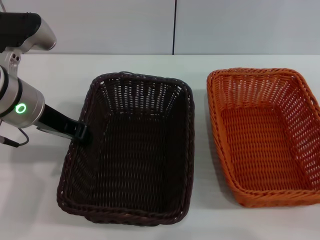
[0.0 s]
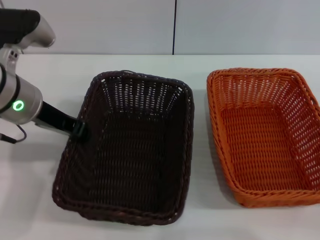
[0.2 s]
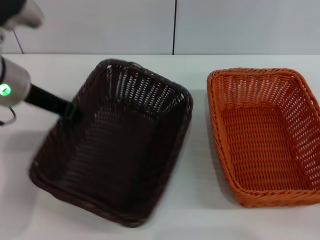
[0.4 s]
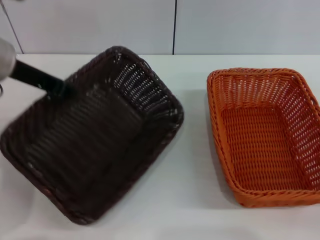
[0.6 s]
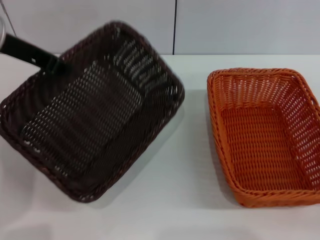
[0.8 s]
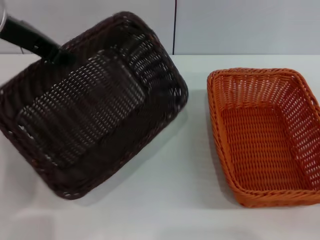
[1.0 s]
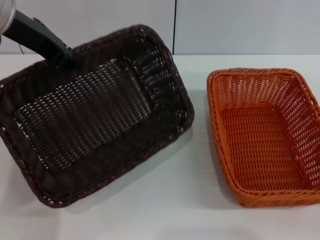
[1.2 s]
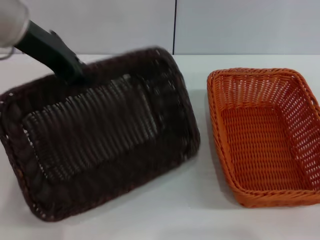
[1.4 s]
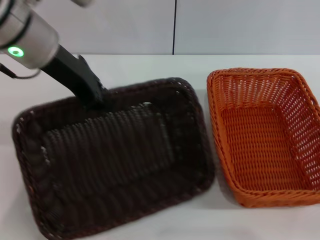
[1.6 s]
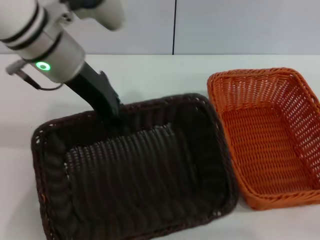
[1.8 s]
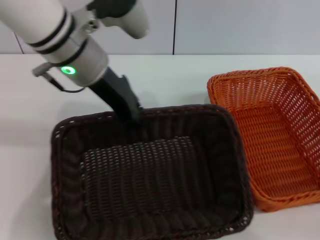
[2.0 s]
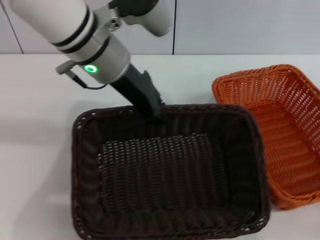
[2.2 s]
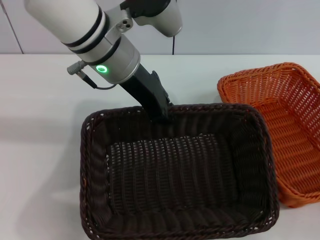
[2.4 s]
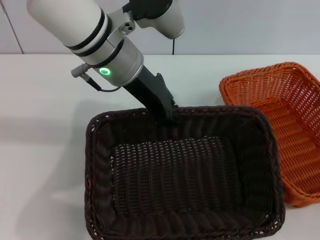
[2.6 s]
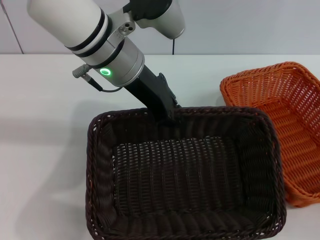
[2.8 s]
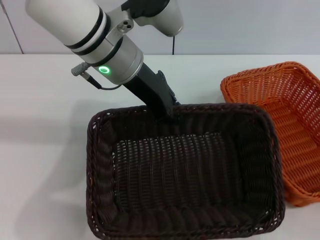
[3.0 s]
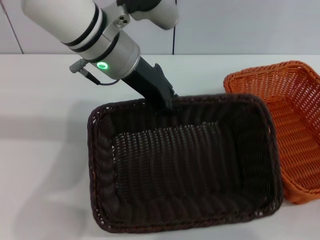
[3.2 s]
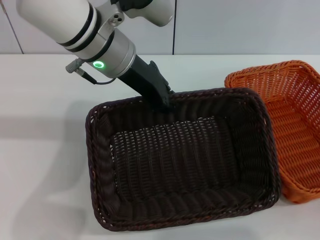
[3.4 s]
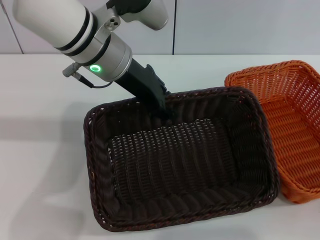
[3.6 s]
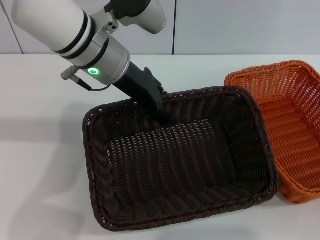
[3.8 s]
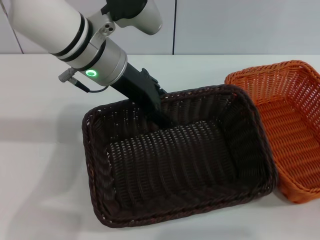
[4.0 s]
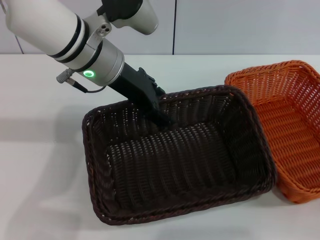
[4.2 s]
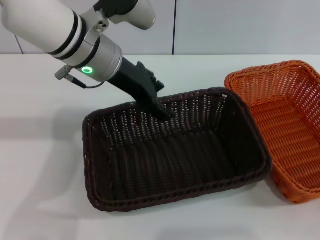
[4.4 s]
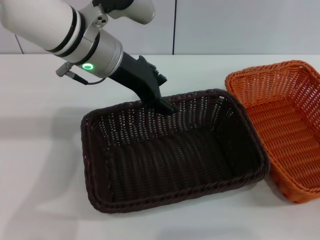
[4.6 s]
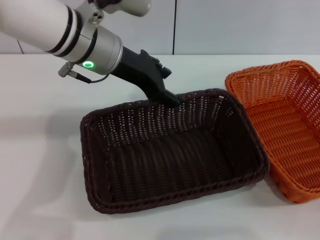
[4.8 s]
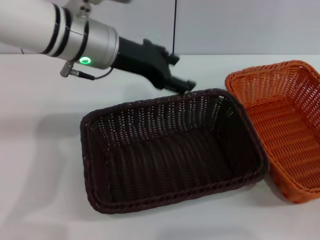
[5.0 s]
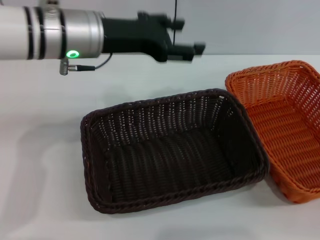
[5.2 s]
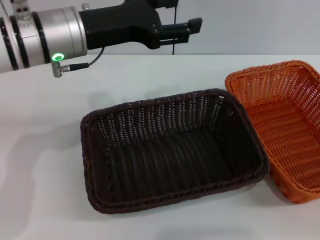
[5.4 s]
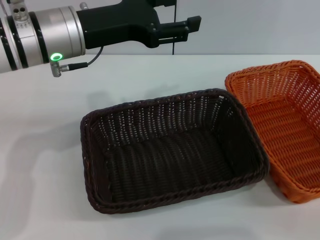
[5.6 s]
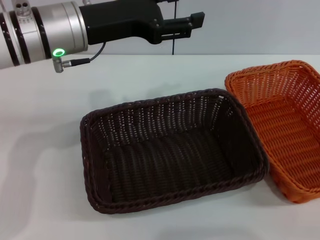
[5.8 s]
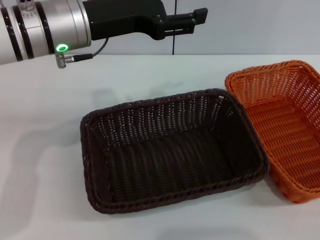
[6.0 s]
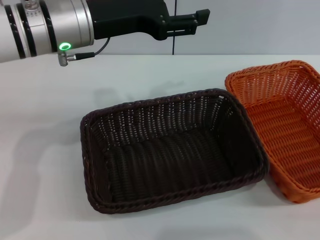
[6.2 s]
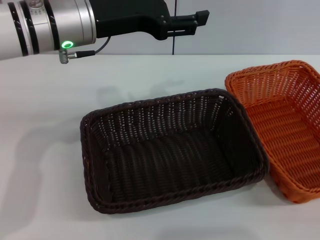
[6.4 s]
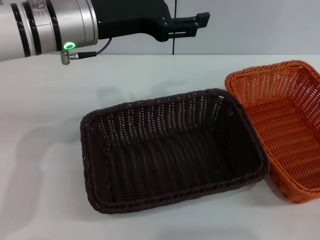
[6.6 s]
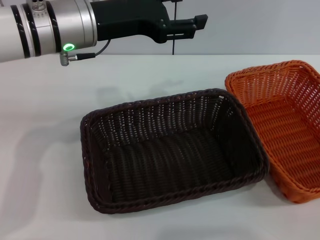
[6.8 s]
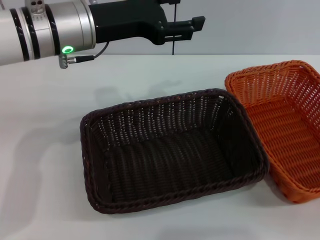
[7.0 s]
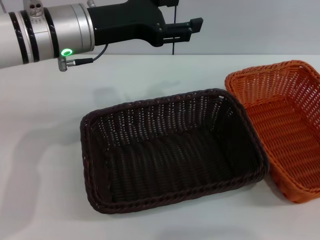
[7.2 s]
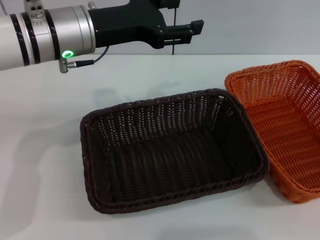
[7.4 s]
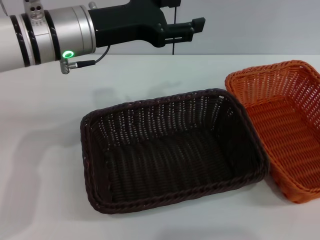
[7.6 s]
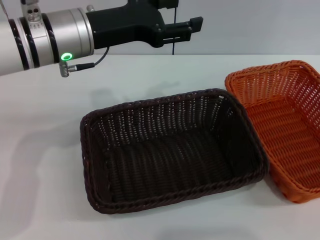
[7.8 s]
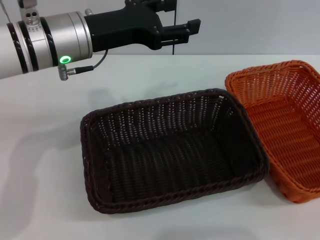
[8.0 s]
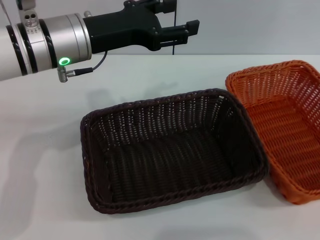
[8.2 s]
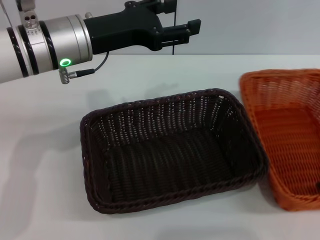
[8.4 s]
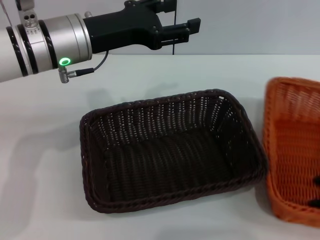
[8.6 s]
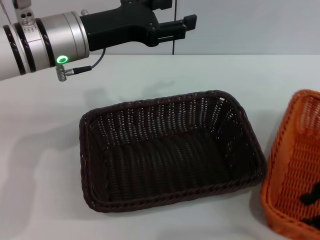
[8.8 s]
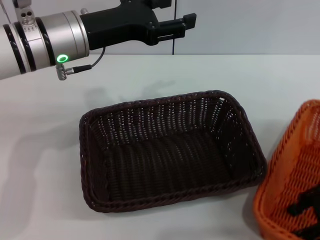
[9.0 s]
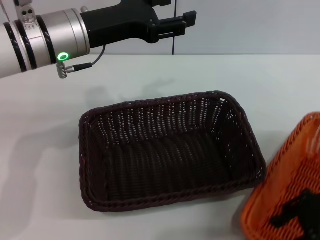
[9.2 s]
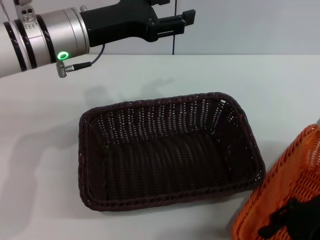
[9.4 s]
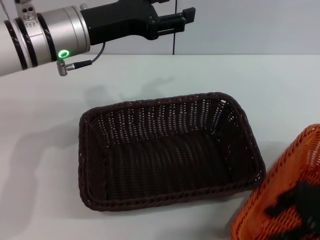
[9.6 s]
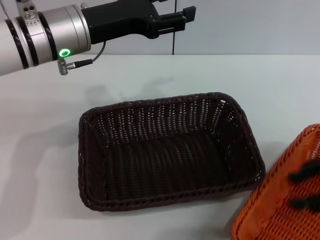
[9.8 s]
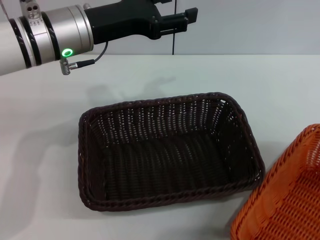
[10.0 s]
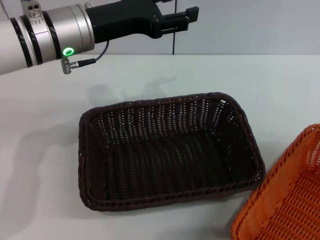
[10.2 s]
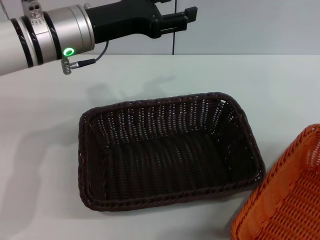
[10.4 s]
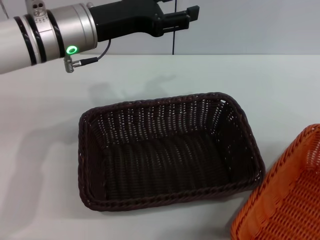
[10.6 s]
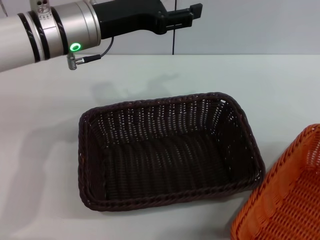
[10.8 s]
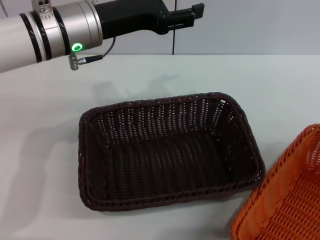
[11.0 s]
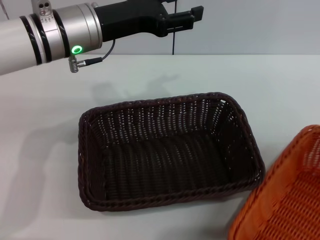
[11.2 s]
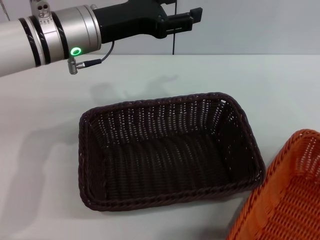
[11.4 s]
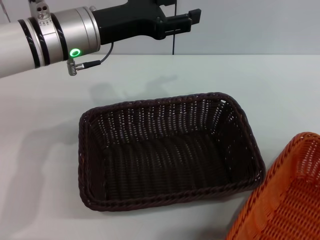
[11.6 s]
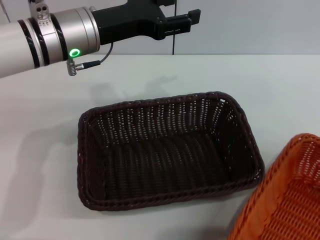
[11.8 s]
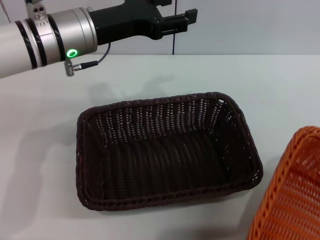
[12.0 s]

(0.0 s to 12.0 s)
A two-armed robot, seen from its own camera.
Step, 0.8 s - 4.4 s: Place the dark basket in the center of view with the left gripper.
0.0 s - 1.6 s: The left gripper shifts roughly 10 cm upward.
1.6 s - 3.0 s: The left gripper heads to the right, covering approximately 10 cm.
3.0 s - 4.4 s: The left gripper opens up.
4.4 s - 6.0 s: The right gripper shifts some 10 cm backward.
6.0 s - 7.6 s: The right gripper moves forward and upward, approximately 20 cm.
7.6 s - 9.0 s: The right gripper goes roughly 15 cm to the left and downward.
9.0 s - 10.4 s: The right gripper goes approximately 15 cm to the right and upward.
10.4 s - 12.0 s: The right gripper shifts some 5 cm downward, and closes up.

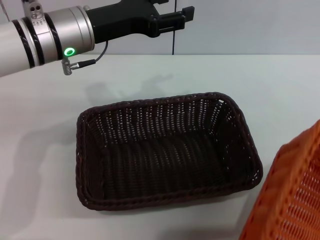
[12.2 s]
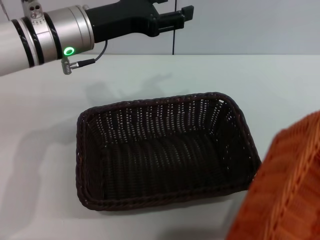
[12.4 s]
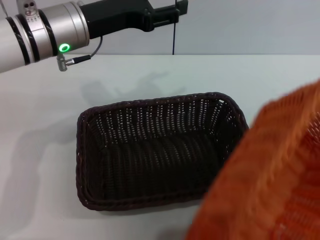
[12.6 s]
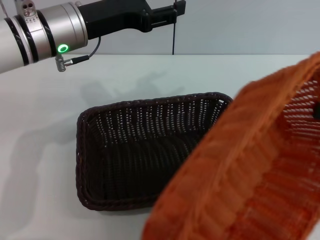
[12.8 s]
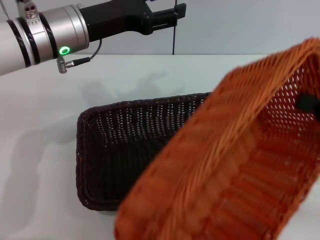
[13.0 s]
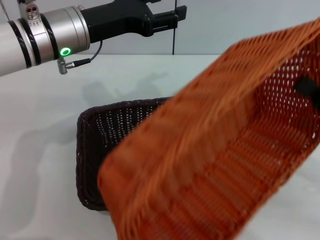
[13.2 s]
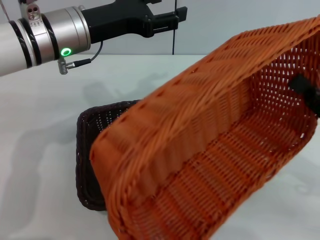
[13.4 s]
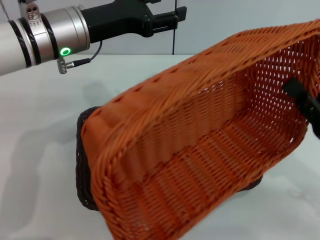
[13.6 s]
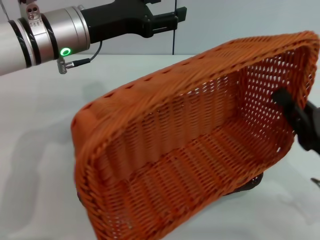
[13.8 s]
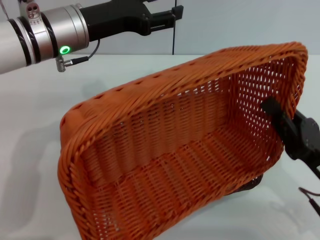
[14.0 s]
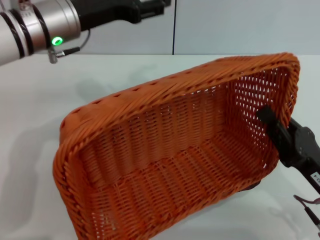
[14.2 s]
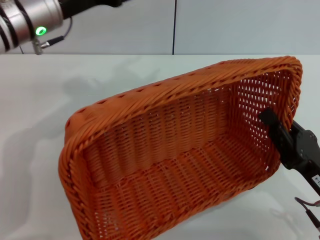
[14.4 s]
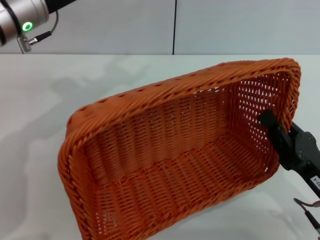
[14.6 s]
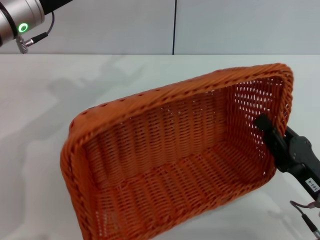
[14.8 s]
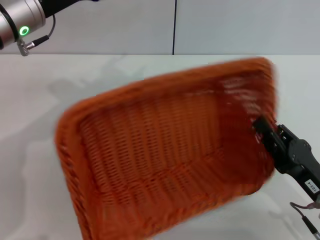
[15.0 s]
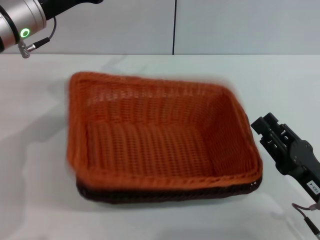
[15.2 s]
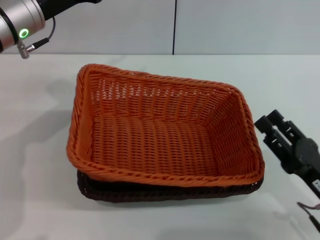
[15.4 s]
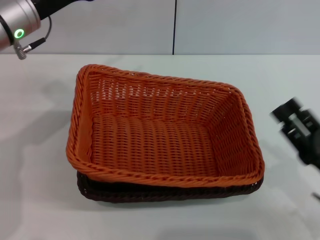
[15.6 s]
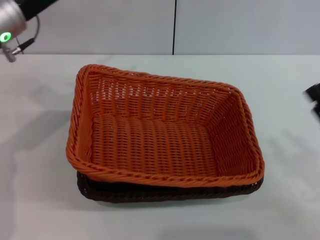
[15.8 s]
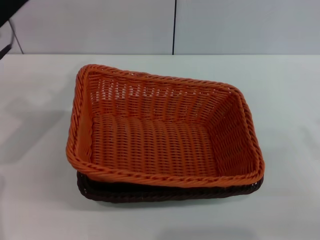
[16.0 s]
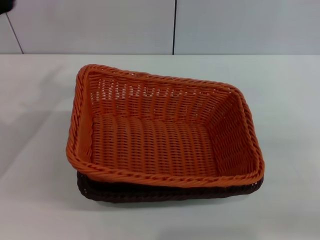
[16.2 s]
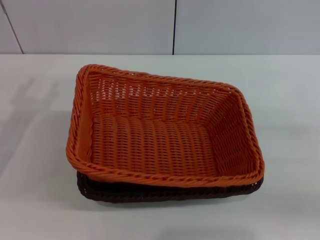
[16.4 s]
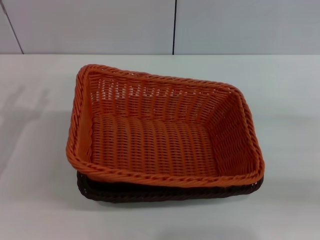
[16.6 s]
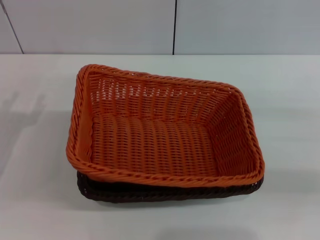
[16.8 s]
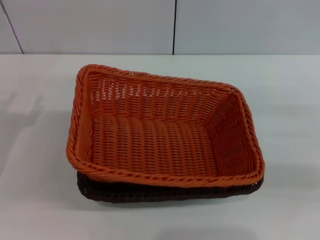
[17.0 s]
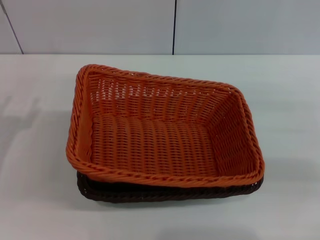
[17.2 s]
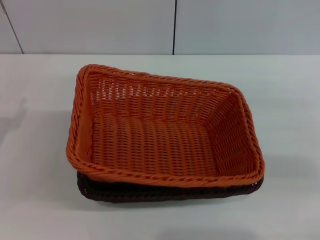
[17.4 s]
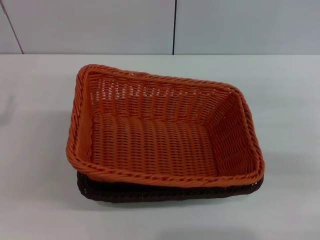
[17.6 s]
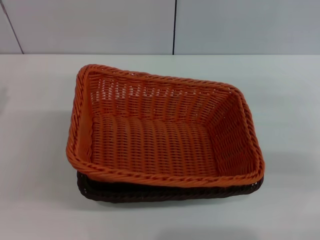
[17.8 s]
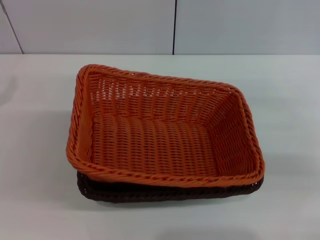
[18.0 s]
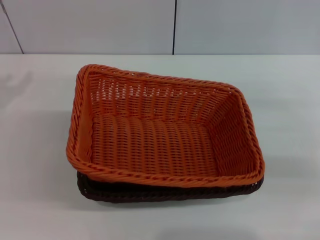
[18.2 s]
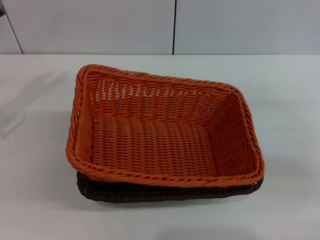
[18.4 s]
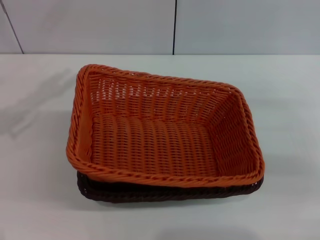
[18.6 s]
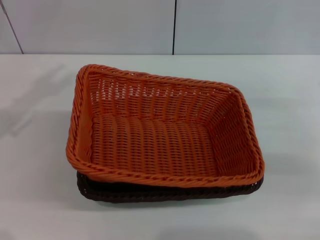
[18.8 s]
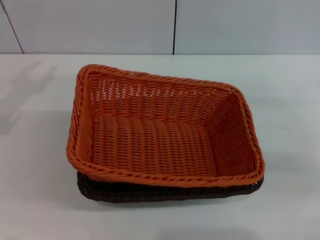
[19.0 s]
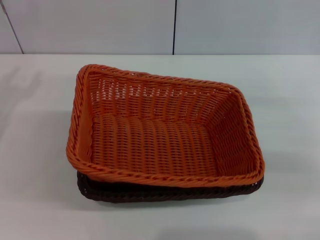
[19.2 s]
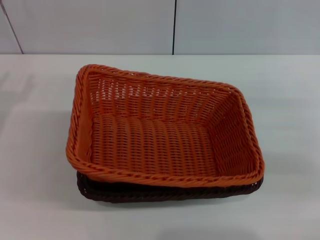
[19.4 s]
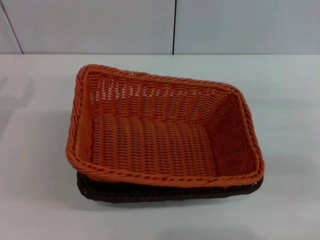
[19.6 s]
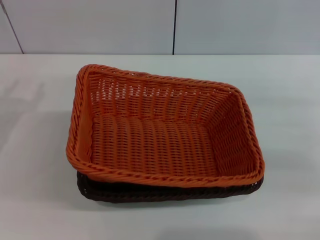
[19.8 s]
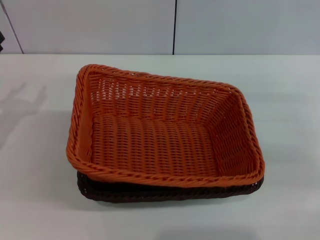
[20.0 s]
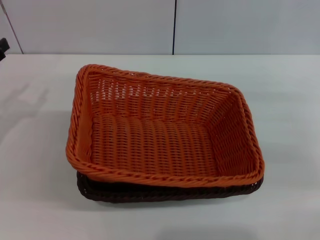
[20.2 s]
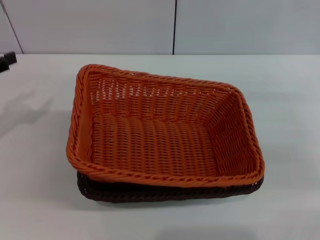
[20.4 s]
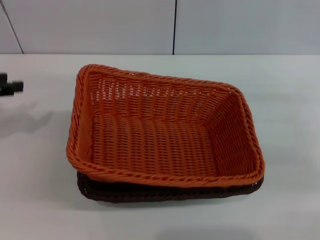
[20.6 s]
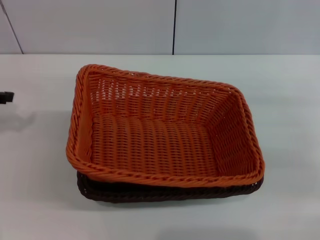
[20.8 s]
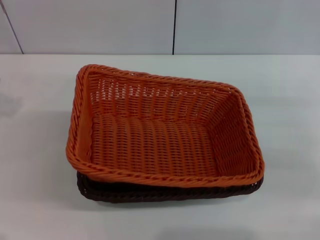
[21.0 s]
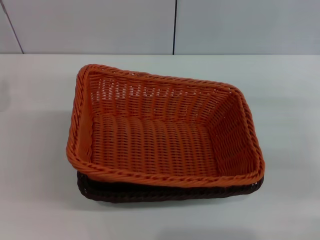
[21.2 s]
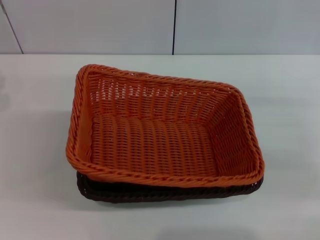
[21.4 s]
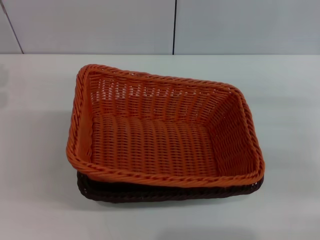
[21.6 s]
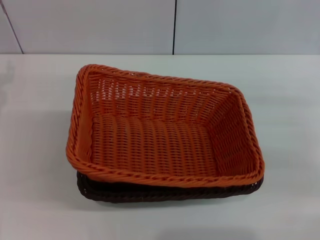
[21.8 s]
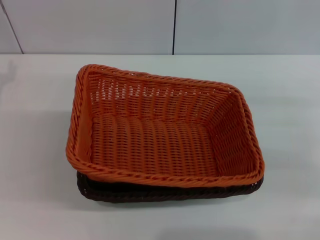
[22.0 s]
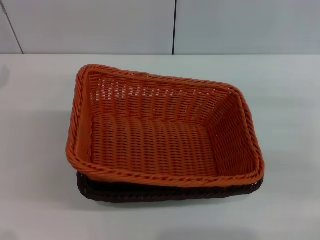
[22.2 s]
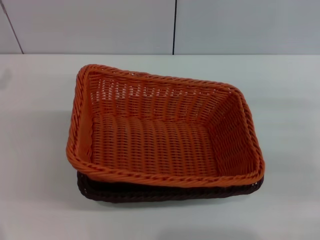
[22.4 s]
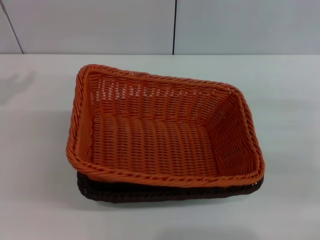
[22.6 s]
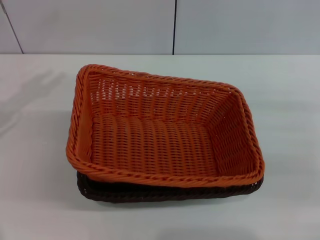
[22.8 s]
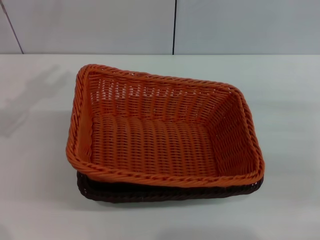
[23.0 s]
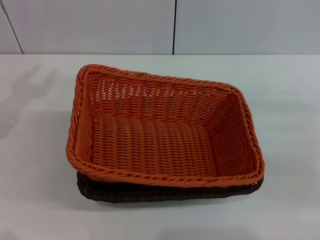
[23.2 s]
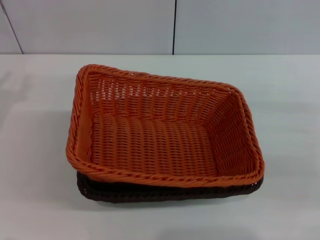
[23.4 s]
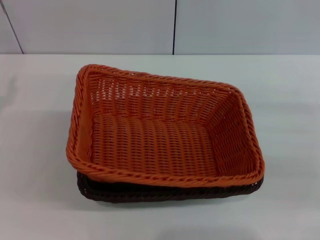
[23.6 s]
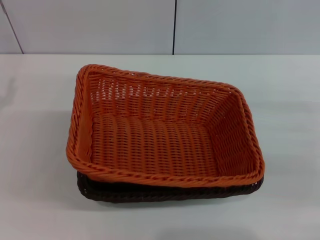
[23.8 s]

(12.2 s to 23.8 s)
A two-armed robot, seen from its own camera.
Step, 12.4 s - 15.2 s: Place the light basket on the dark basket with the right gripper.
12.2 s - 13.6 s: The right gripper is displaced to the left and downward by roughly 15 cm.
13.6 s - 15.0 s: The left gripper travels to the left by about 5 cm. The right gripper heads downward, covering some 5 cm.
15.0 s - 16.6 s: The right gripper goes approximately 20 cm to the right, forward and upward, and opens its fingers; the left gripper moves backward, downward and to the left, some 20 cm.
